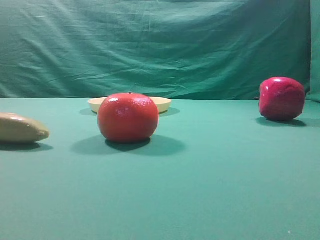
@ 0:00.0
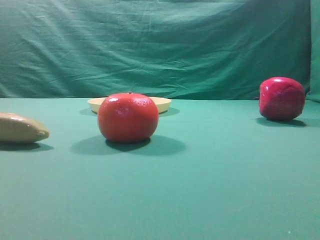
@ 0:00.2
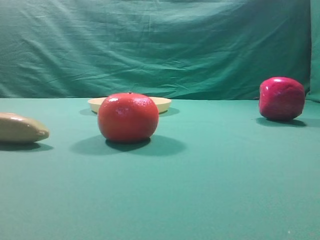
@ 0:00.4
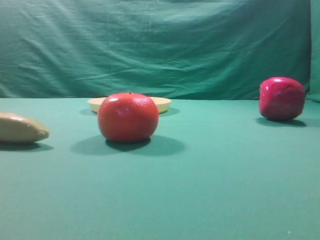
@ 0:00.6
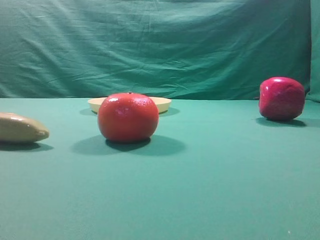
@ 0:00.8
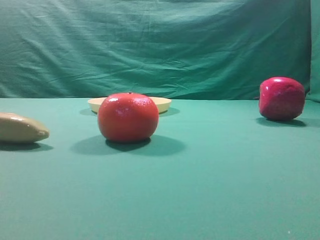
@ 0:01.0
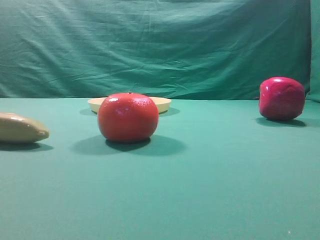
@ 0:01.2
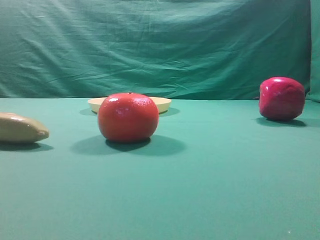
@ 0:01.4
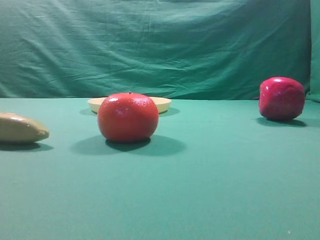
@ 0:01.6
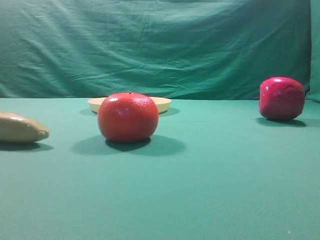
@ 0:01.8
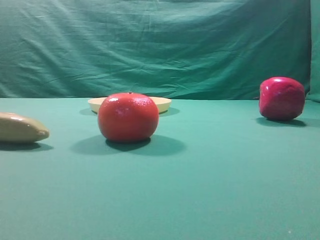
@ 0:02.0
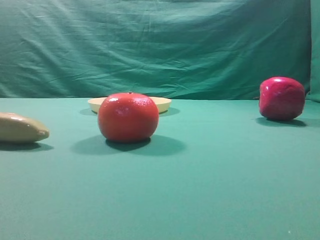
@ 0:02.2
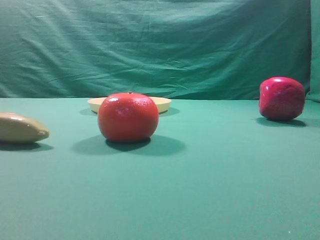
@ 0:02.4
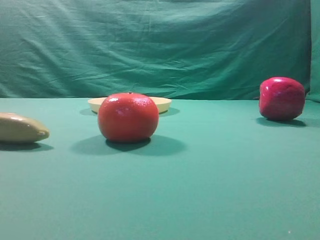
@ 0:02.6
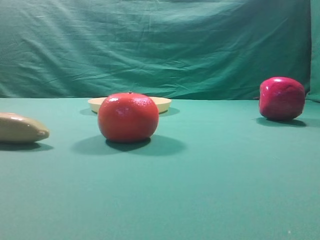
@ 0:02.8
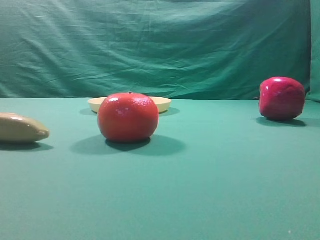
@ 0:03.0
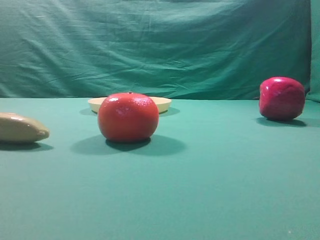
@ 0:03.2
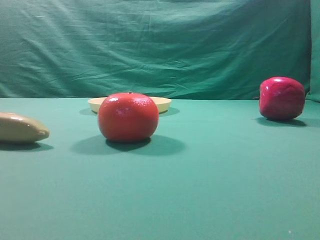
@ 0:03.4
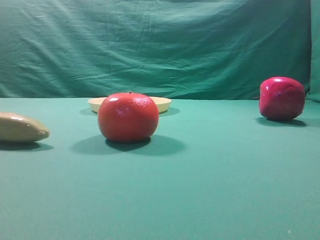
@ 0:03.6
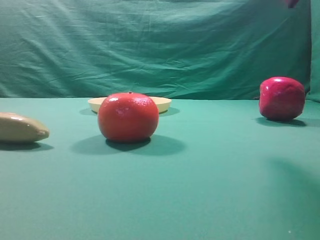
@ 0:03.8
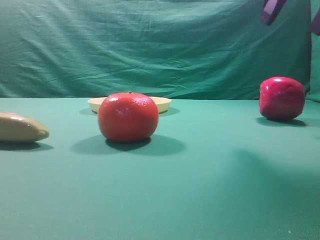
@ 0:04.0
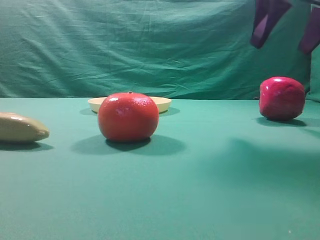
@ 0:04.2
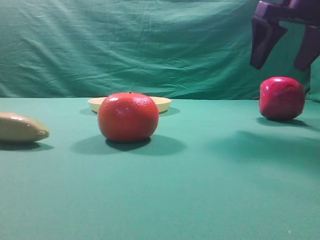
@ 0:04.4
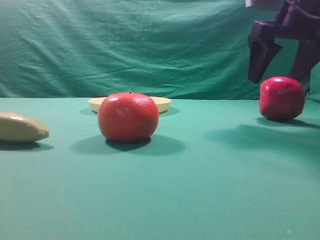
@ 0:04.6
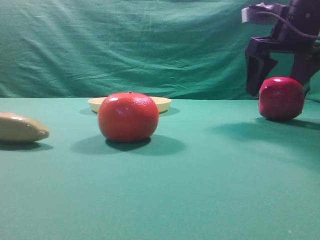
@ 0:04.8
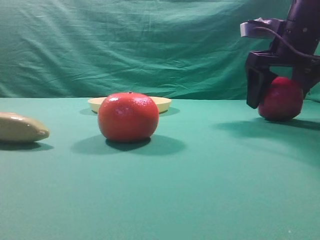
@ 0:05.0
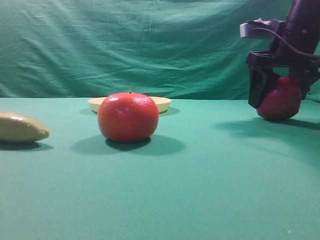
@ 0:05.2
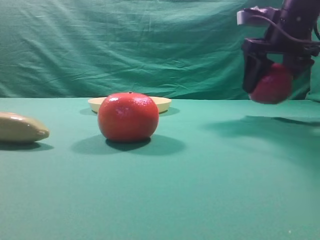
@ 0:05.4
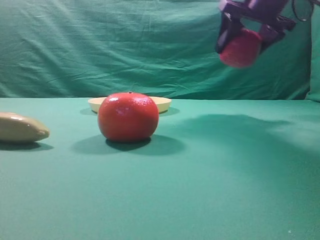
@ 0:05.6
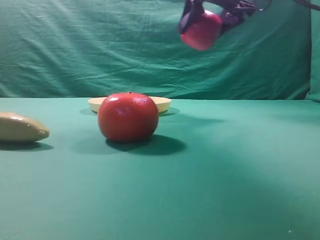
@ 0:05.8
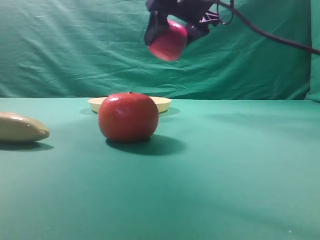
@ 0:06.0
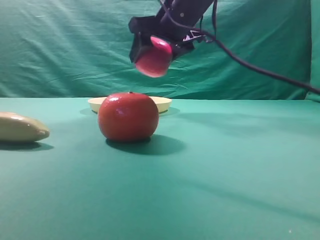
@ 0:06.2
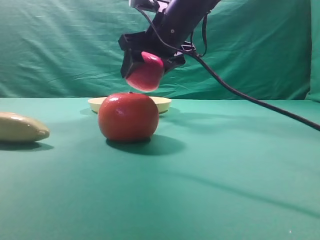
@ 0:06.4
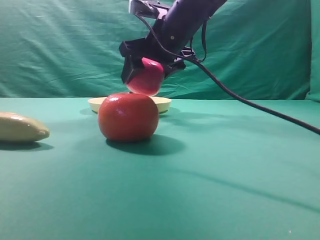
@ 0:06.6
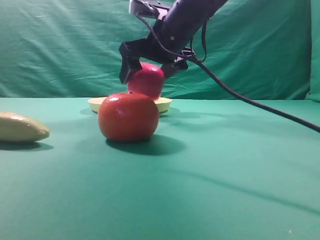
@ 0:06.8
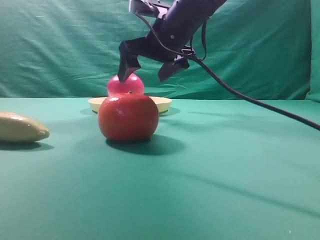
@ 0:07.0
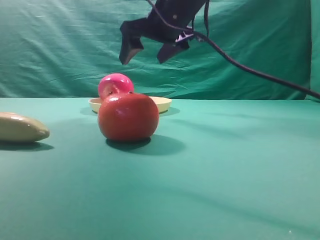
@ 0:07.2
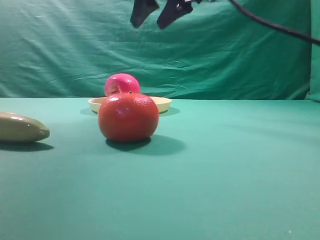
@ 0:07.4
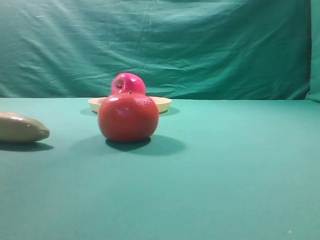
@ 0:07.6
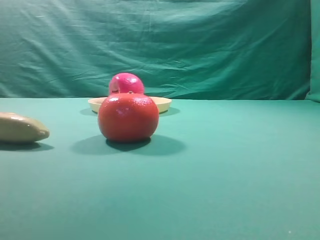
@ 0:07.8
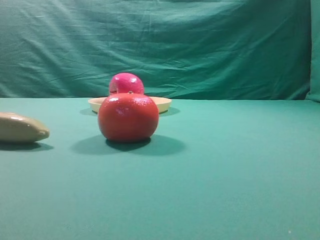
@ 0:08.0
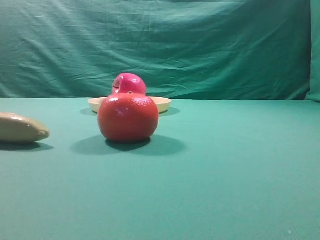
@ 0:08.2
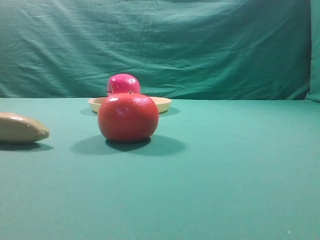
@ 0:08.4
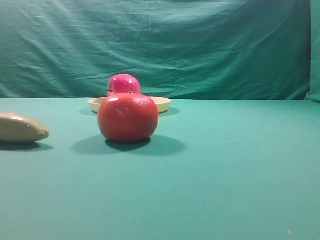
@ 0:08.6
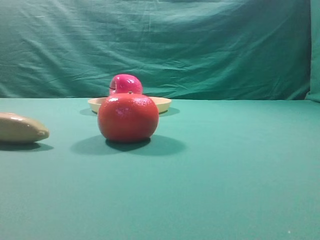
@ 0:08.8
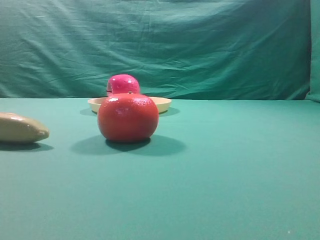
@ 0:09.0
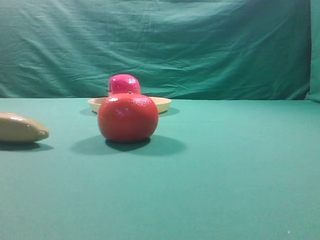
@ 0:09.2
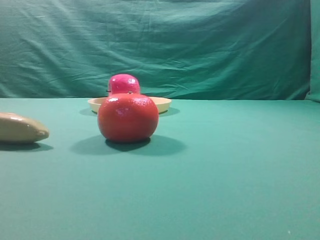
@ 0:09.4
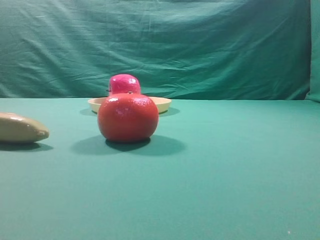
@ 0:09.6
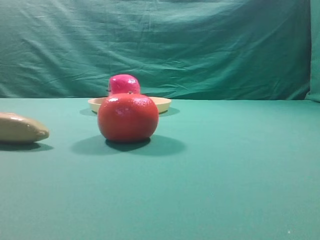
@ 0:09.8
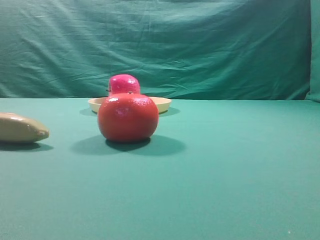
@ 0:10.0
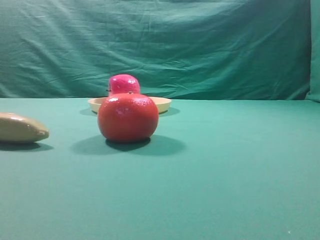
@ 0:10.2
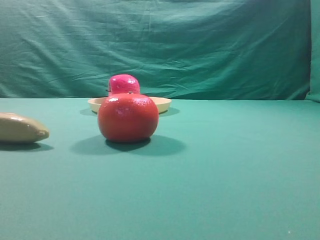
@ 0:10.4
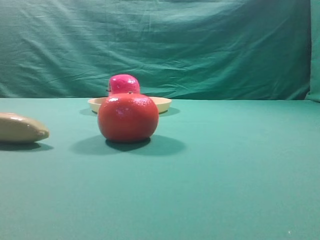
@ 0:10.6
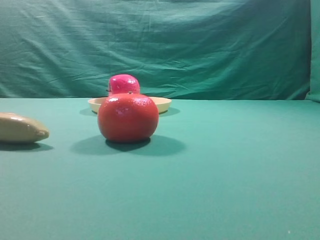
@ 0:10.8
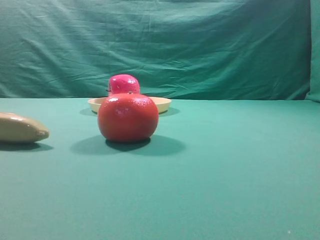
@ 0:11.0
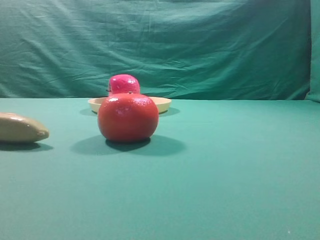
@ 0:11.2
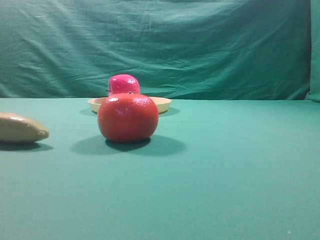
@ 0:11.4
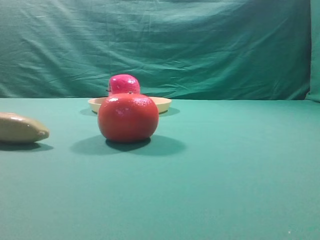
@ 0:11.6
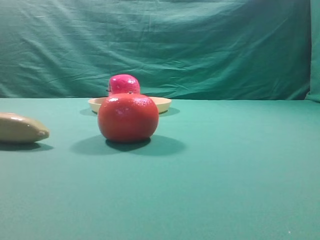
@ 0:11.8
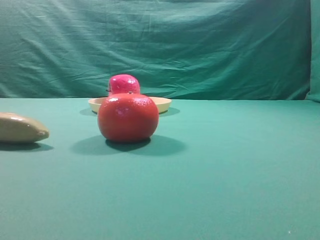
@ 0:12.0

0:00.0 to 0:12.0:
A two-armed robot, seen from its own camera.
Task of the whole recording: grasp the apple and place it into the yellow plate.
Step, 0:00.0 to 0:05.2: Grasp the fruit that can keep the doctor away.
Step, 0:05.6 to 0:07.2: Place the picked object into the yellow plate.

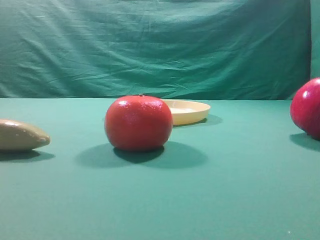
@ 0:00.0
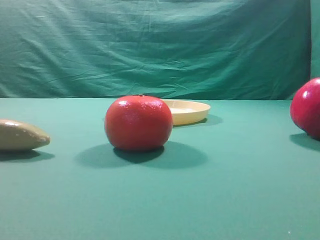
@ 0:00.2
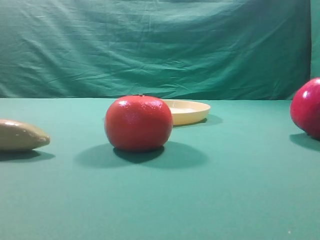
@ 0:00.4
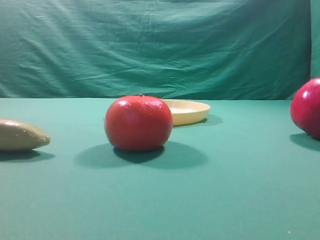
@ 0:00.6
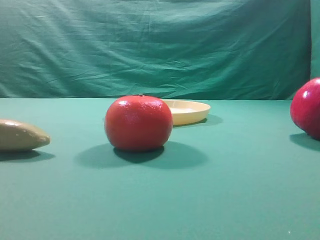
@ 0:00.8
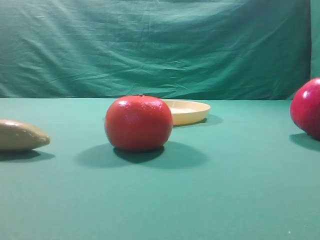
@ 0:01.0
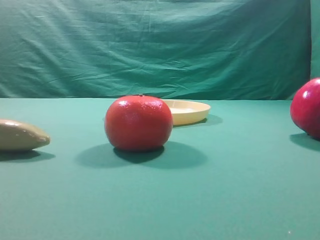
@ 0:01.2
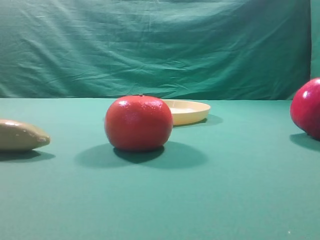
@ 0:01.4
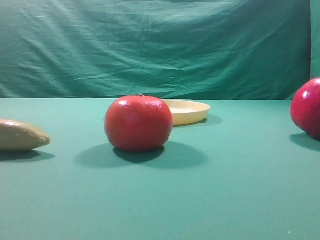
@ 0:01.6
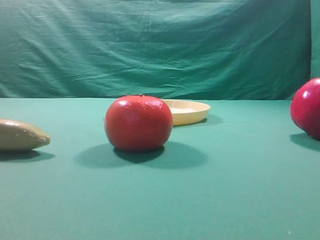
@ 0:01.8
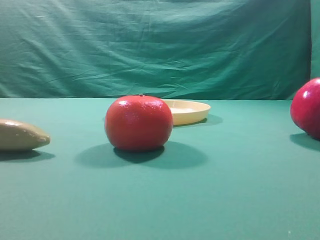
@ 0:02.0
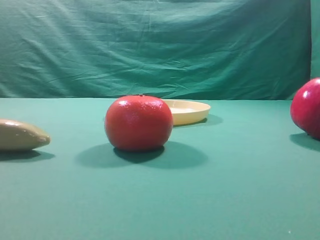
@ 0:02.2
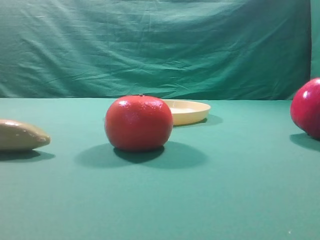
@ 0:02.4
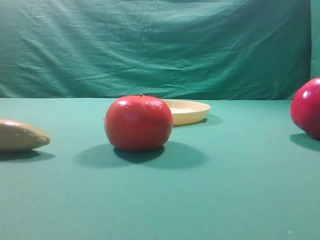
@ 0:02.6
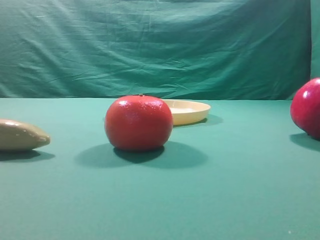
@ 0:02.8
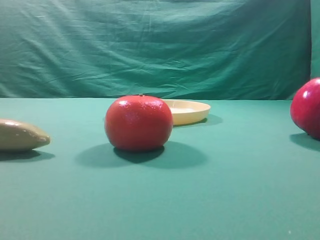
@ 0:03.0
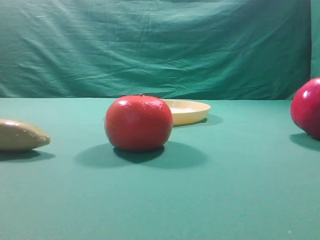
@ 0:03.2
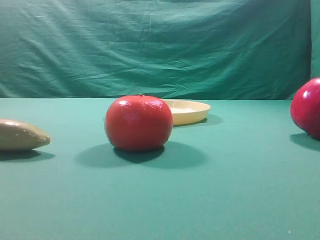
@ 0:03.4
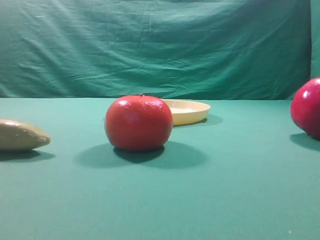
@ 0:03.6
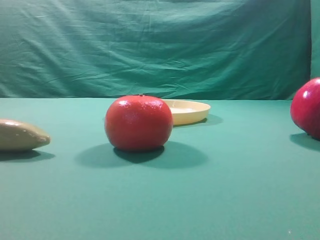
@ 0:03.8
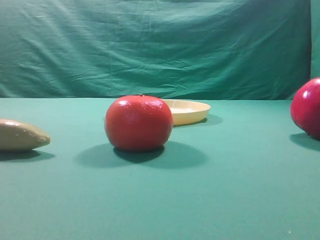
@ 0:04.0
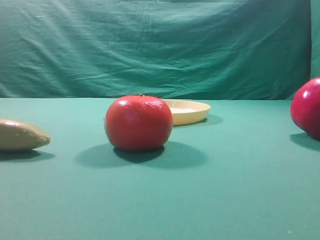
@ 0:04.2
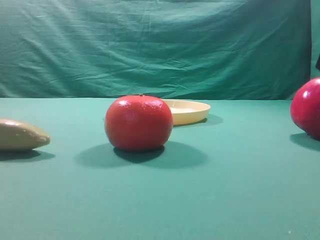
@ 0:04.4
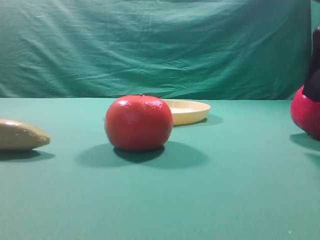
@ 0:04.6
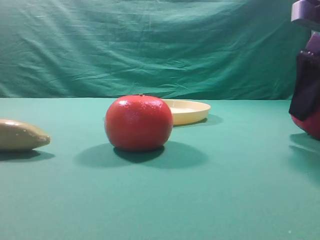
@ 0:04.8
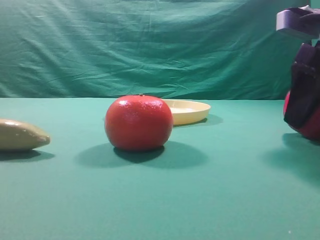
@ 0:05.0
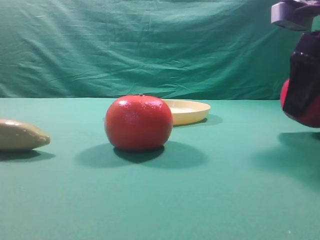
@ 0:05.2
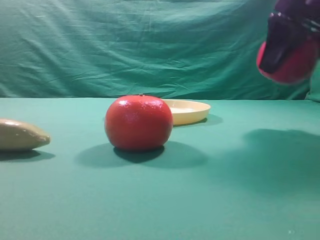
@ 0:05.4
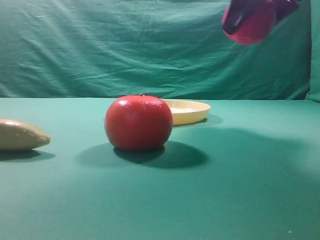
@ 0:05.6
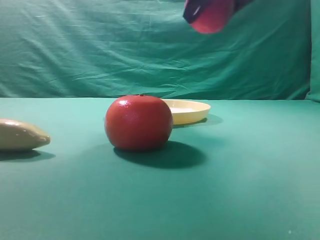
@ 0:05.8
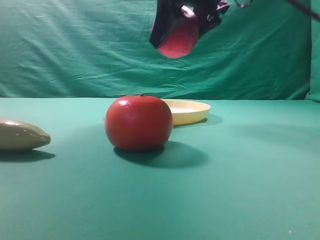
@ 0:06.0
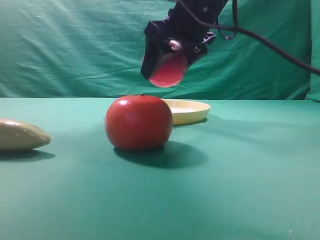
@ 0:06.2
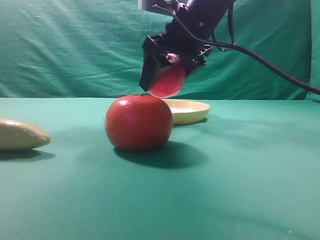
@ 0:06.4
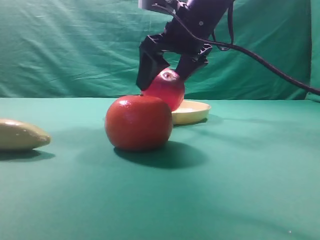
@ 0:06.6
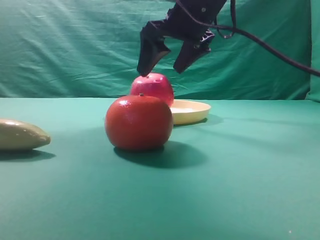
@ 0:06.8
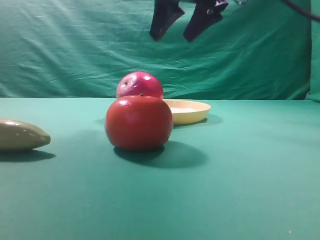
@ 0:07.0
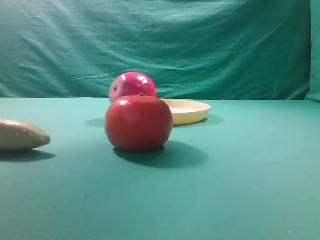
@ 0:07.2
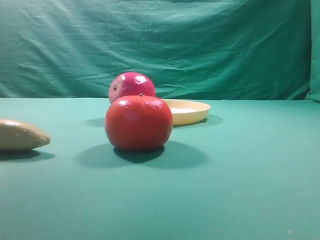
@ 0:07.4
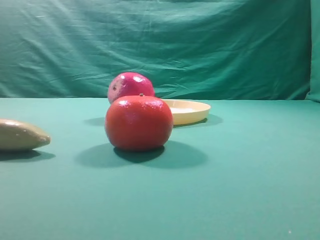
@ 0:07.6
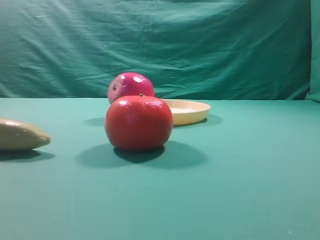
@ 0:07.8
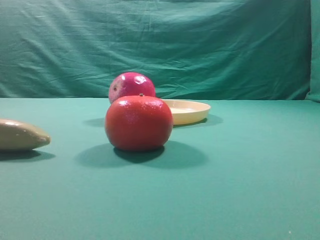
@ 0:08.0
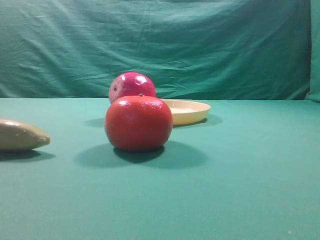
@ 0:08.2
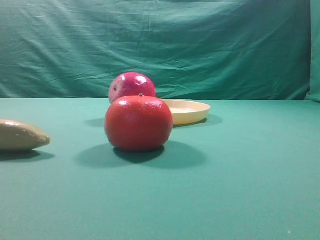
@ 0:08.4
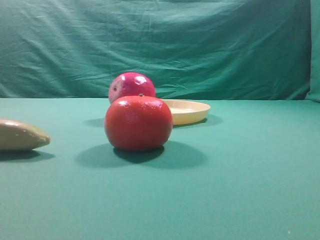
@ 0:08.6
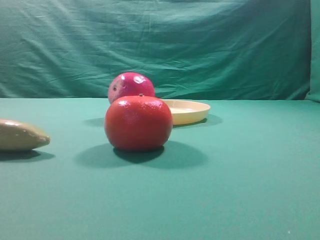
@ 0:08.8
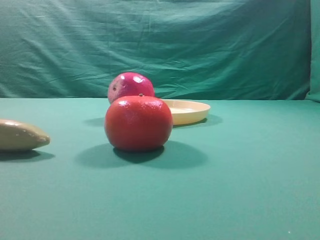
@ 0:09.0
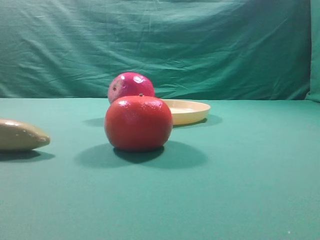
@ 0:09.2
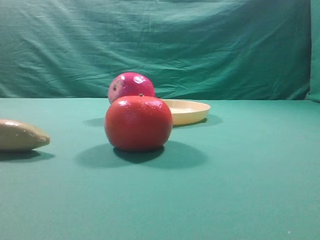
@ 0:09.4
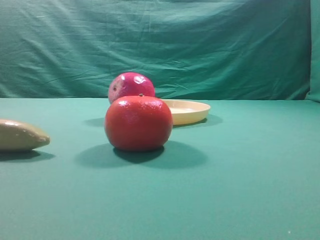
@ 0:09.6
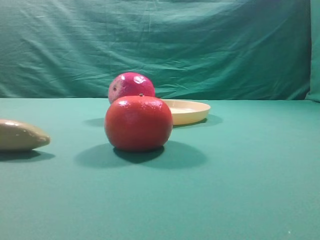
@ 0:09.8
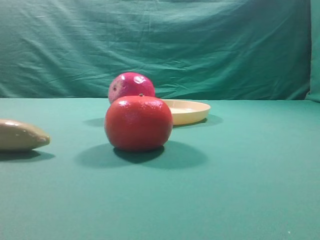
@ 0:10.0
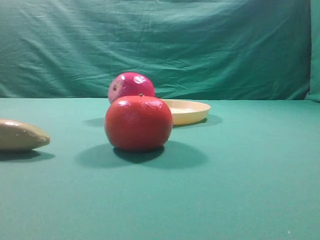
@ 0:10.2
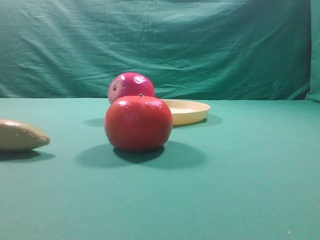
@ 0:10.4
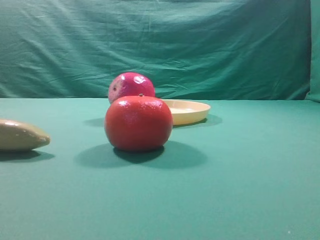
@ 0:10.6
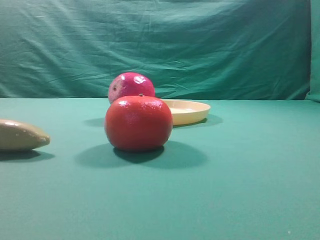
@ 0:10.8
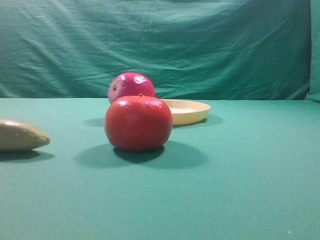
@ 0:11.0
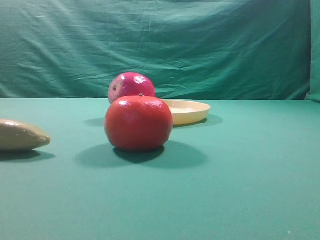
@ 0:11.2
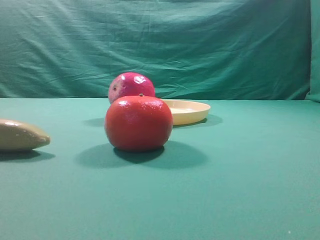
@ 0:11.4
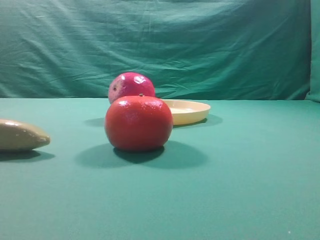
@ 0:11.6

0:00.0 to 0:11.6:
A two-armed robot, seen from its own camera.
Task of the whole recording: grasp the apple and place it into the yellow plate.
Step, 0:00.0 to 0:05.2: Grasp the fruit that can keep the doctor away.
Step, 0:05.4 to 0:06.8: Place the picked object into the yellow plate.
